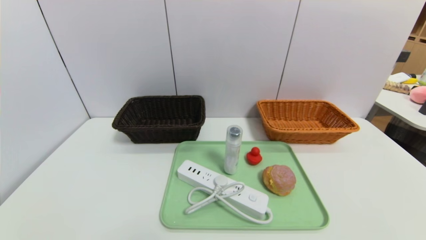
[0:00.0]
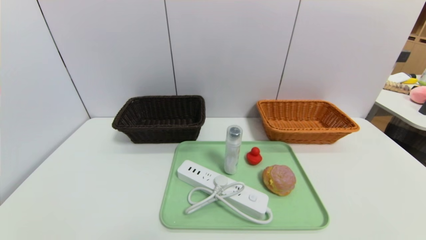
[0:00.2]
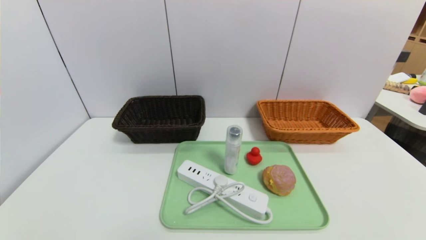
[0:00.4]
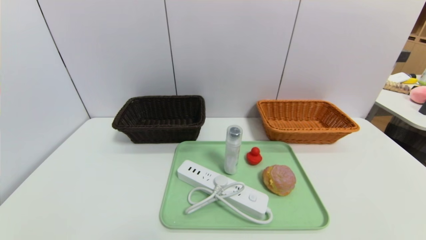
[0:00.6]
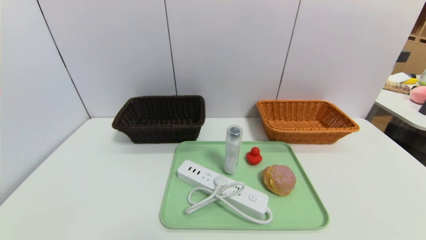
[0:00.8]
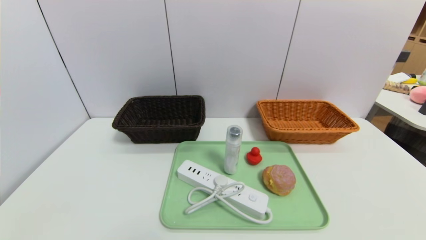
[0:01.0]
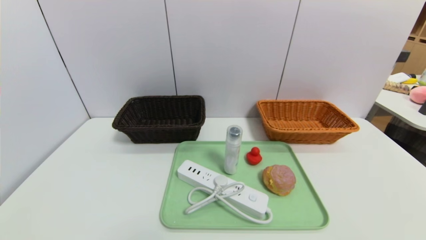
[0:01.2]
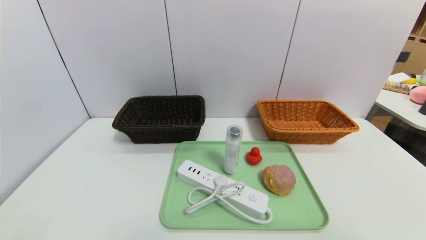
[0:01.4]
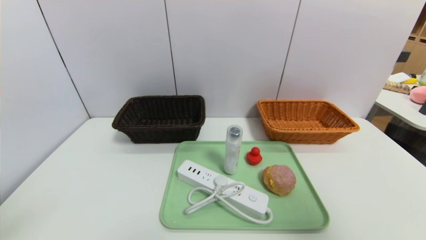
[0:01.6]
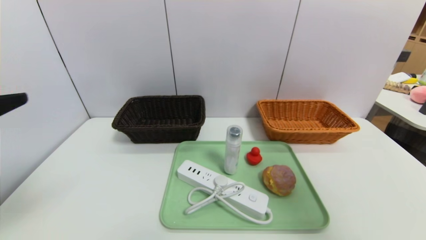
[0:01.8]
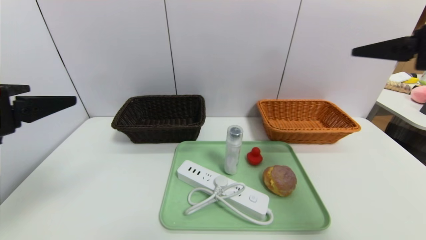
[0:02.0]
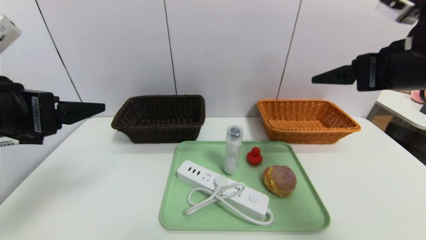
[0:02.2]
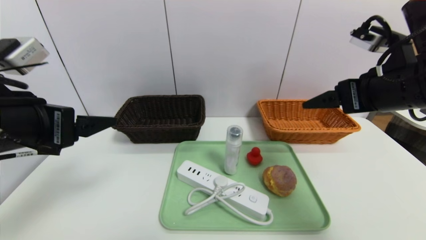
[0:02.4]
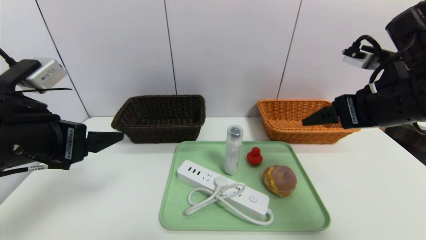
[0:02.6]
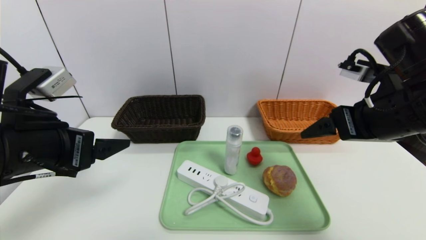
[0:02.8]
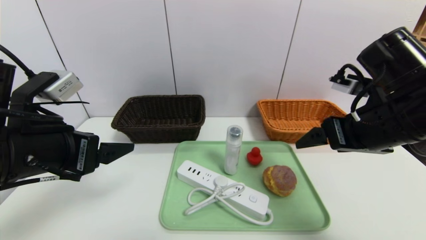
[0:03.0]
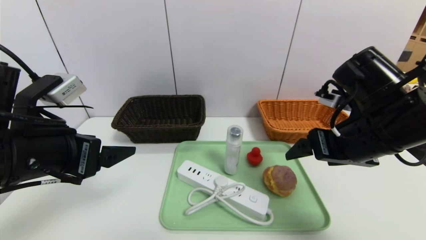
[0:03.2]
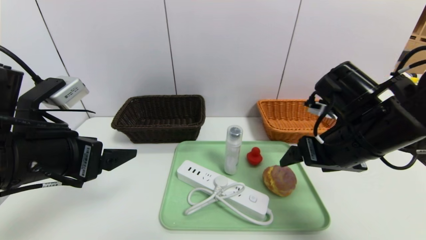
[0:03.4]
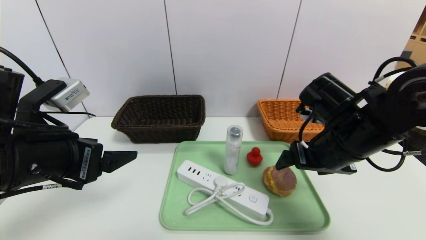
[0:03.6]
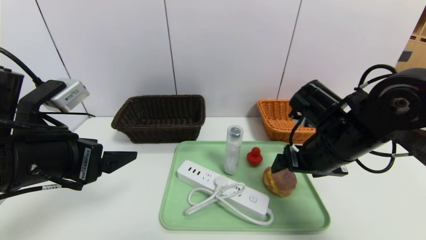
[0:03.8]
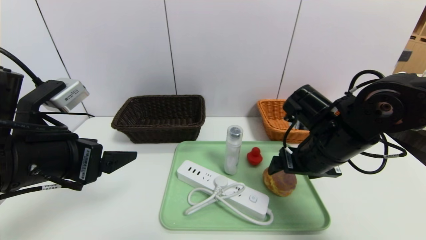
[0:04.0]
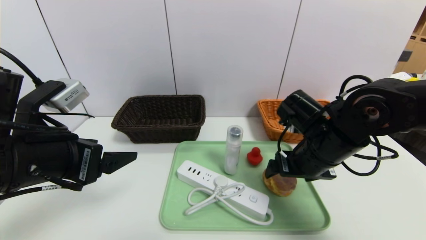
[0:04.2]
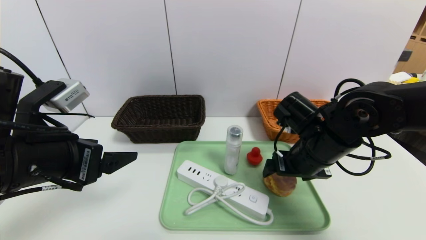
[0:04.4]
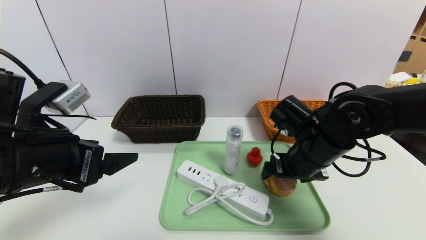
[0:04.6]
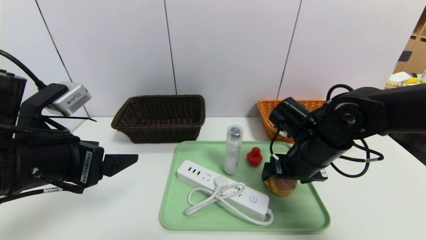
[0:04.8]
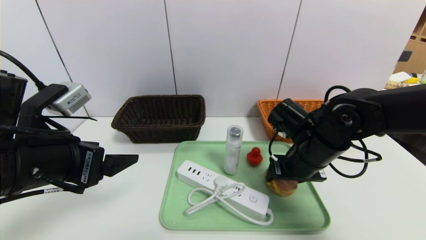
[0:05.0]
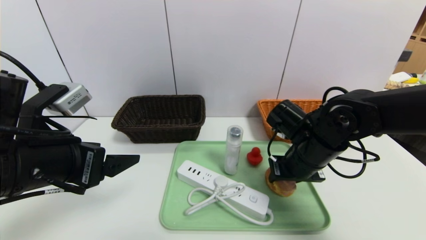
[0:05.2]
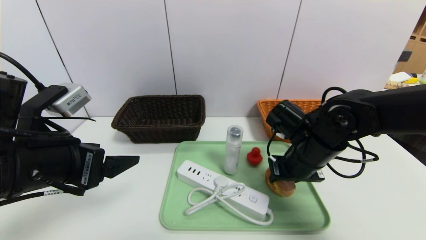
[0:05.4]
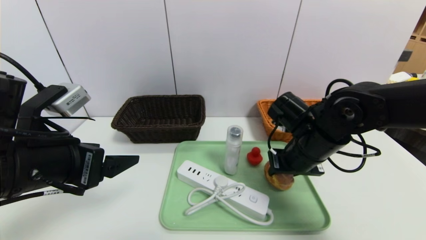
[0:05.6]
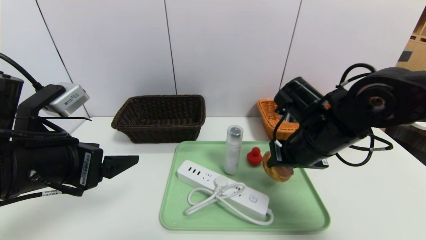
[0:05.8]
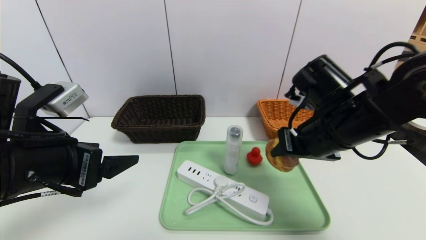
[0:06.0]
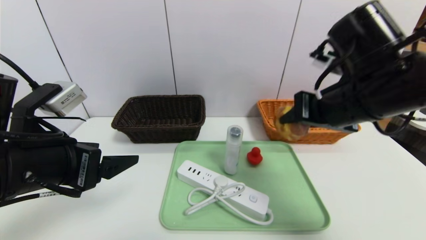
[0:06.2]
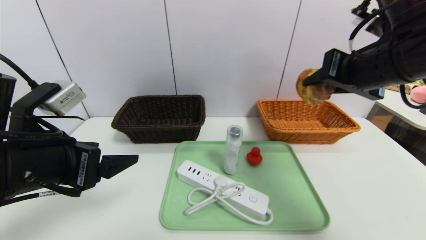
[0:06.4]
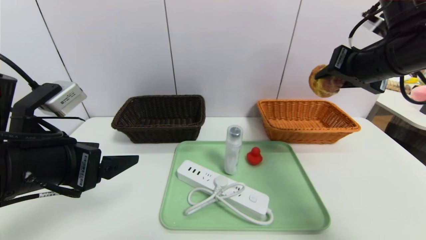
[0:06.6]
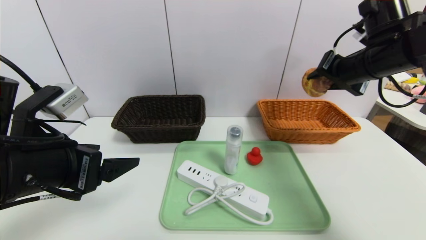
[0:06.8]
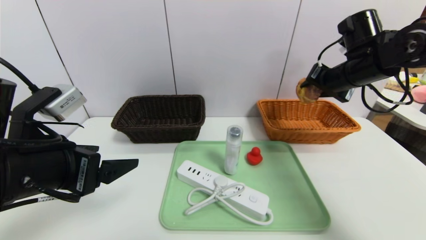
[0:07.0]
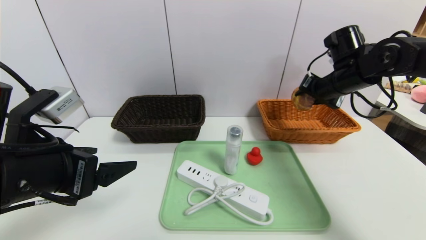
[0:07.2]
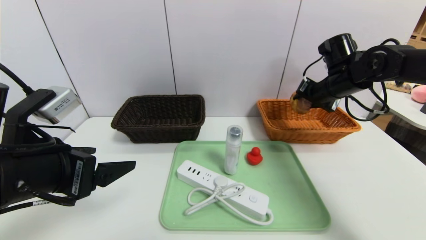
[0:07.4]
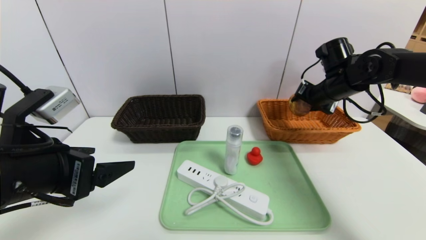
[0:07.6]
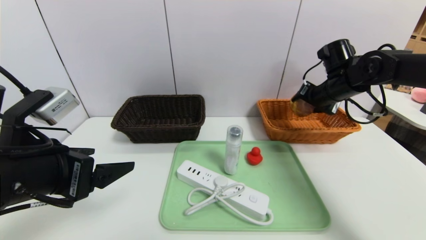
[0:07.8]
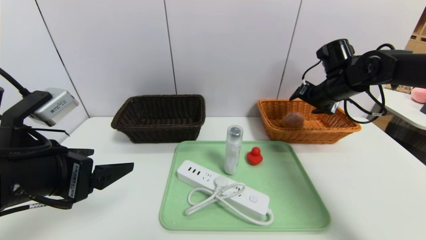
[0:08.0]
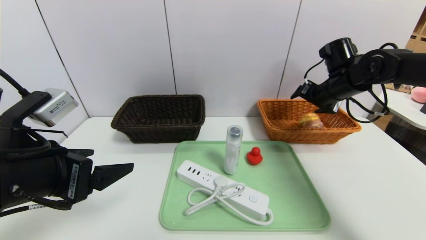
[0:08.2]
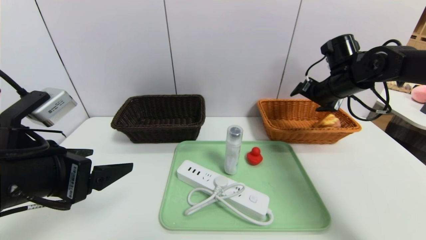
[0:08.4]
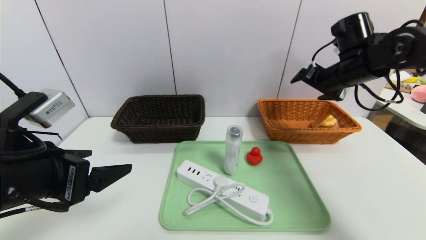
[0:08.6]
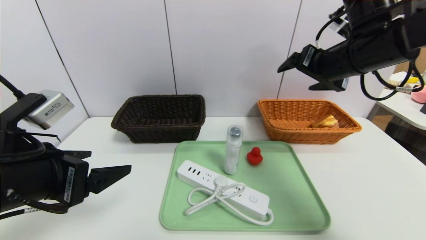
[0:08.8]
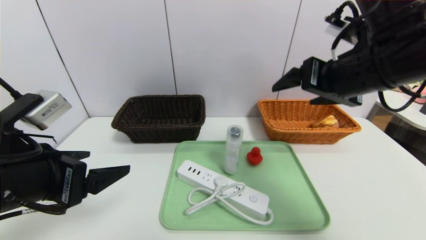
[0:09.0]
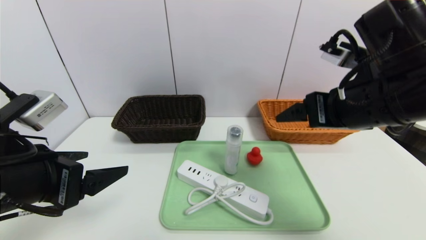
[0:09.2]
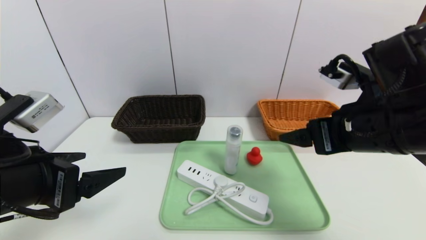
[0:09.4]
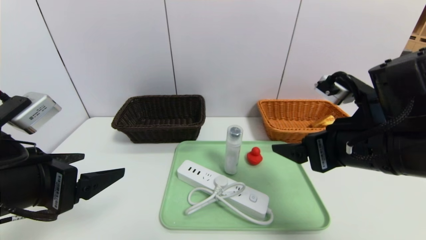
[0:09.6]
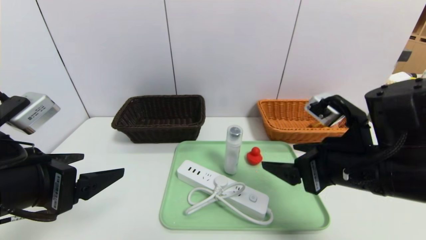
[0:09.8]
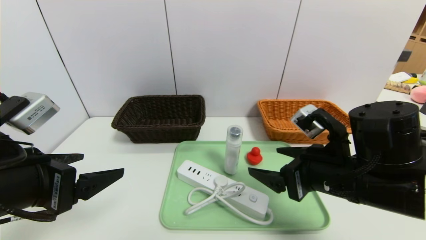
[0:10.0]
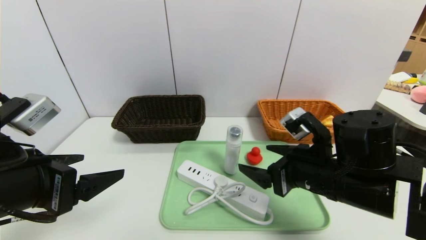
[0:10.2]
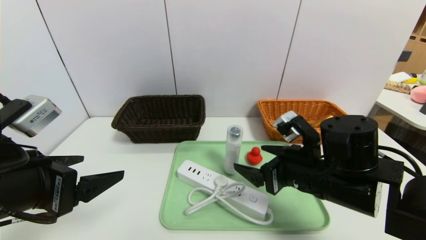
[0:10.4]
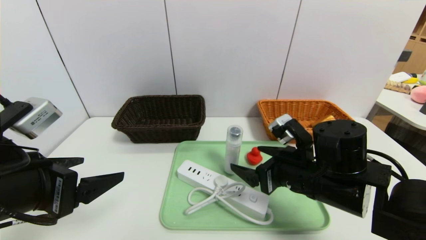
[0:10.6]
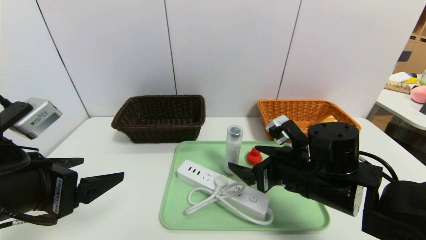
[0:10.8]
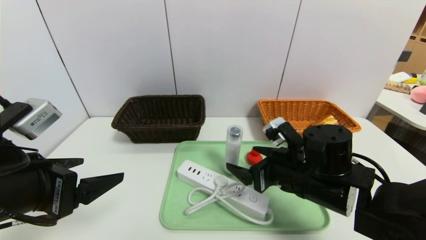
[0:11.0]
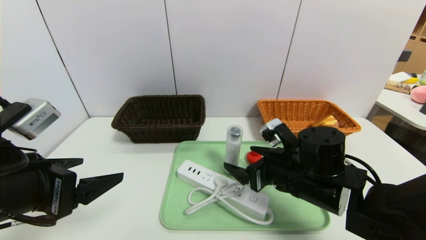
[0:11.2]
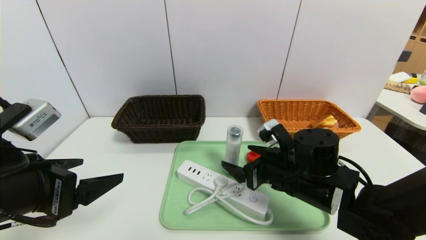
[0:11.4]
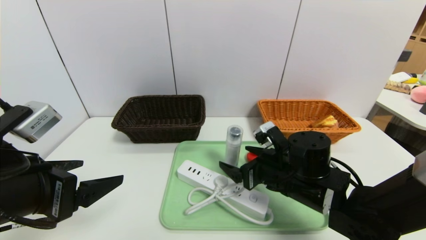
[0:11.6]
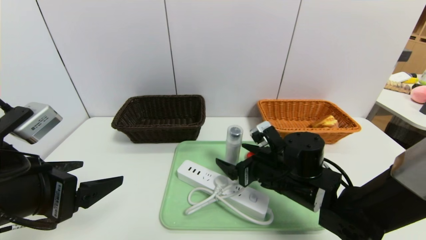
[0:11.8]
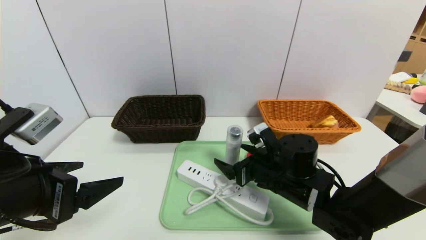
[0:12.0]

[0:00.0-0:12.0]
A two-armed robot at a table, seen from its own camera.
Task of the whole recording: place the food in the right basket with the right gripper, and place the non food items in the left basket with the left gripper.
Step, 0:00.0 to 0:08.8: Grasp the round bread and put it in the right basket.
0:00.0 to 0:01.6: The grippers both shift upward by roughly 25 cm.
0:01.6 to 0:03.0: The right gripper heads forward, downward and to the left, covering roughly 25 cm. Meanwhile the left gripper moves forward, to the right and downward, some 15 cm.
0:03.0 to 0:04.4: The right gripper is displaced downward, to the left and forward by approximately 10 cm.
0:04.4 to 0:06.0: The right gripper travels upward by roughly 5 cm, and closes its fingers.
0:06.0 to 0:07.6: The right gripper travels forward and to the right by about 20 cm.
0:07.6 to 0:09.0: The right gripper travels backward, upward and to the left by some 20 cm, and opens its fingers.
0:09.0 to 0:10.4: The right gripper travels downward by roughly 15 cm.
0:10.4 to 0:12.0: The right gripper shifts some 5 cm downward.

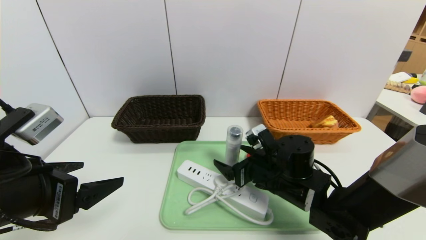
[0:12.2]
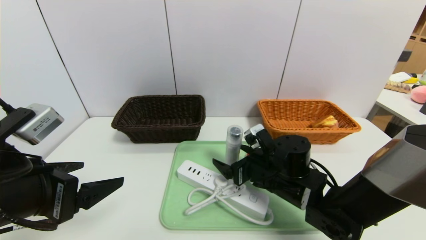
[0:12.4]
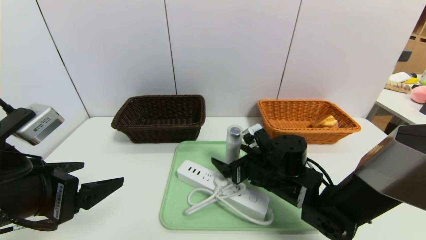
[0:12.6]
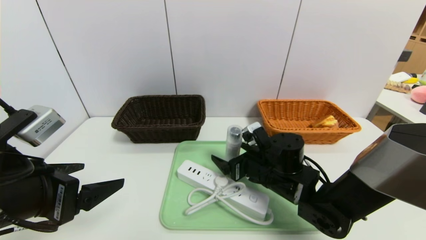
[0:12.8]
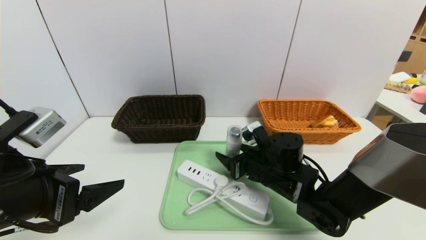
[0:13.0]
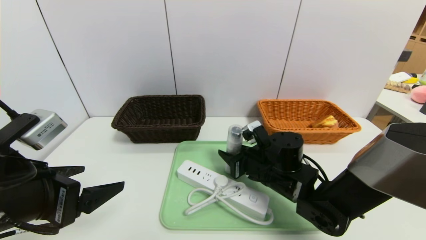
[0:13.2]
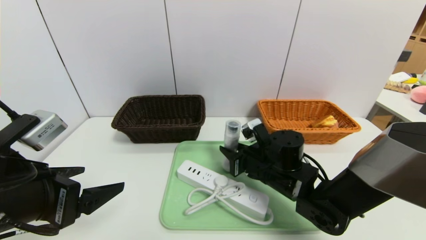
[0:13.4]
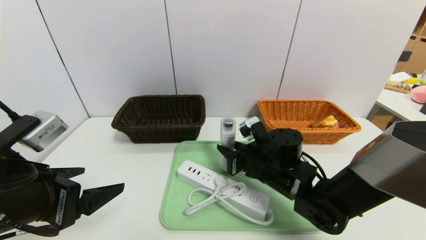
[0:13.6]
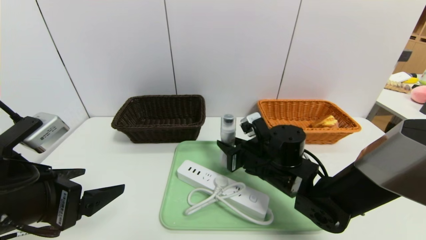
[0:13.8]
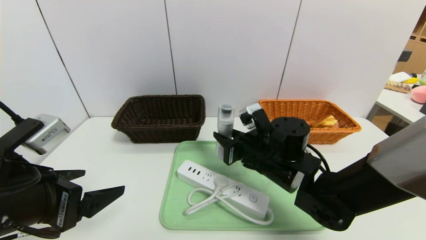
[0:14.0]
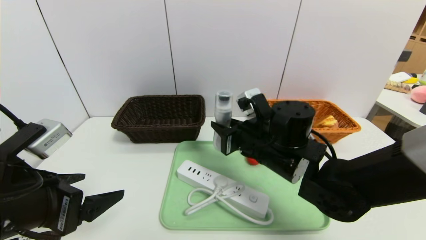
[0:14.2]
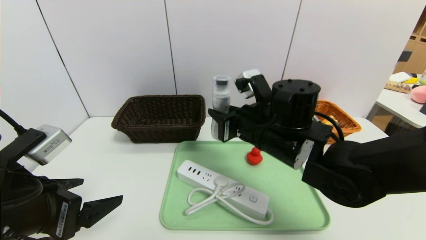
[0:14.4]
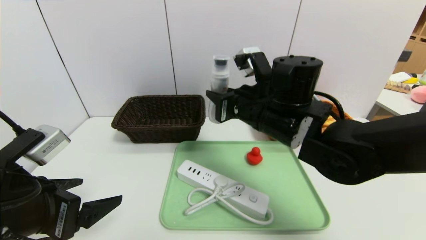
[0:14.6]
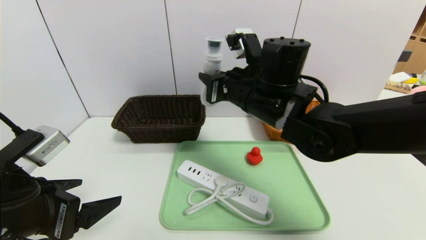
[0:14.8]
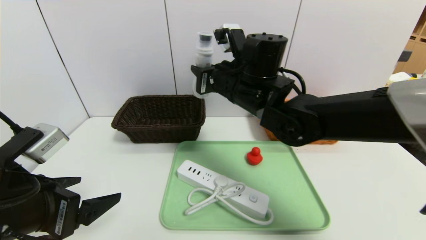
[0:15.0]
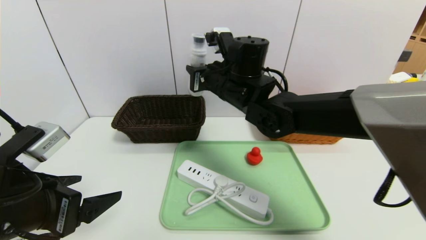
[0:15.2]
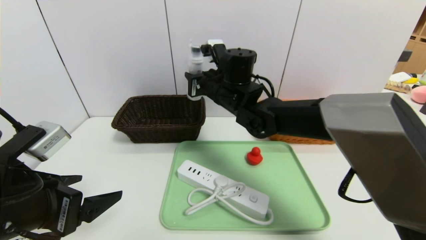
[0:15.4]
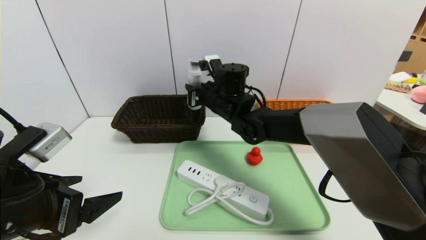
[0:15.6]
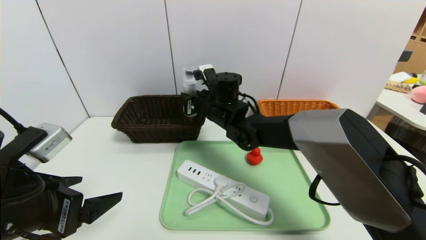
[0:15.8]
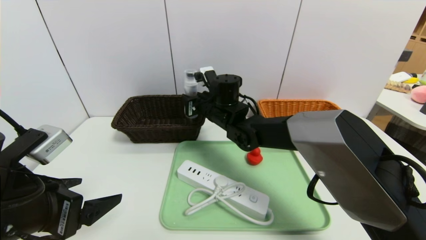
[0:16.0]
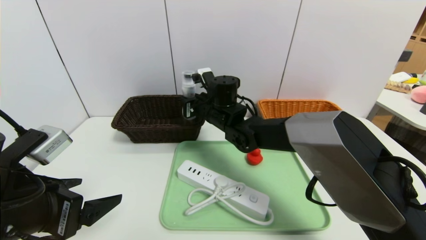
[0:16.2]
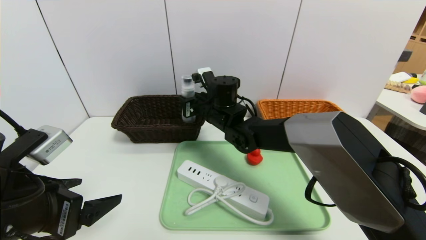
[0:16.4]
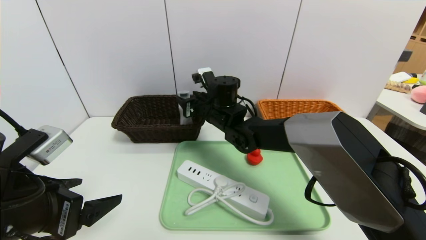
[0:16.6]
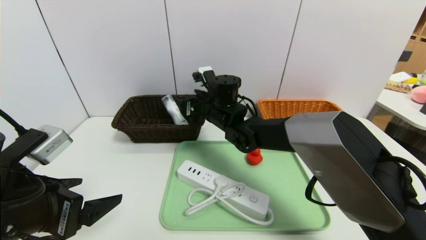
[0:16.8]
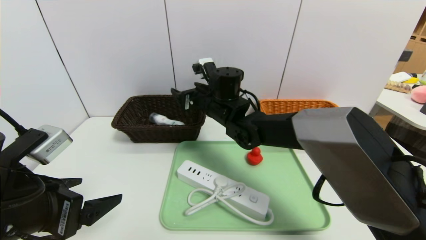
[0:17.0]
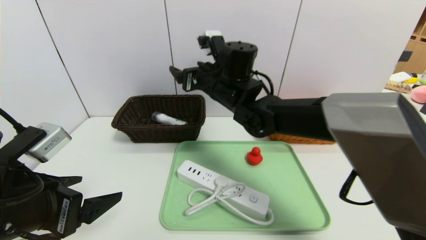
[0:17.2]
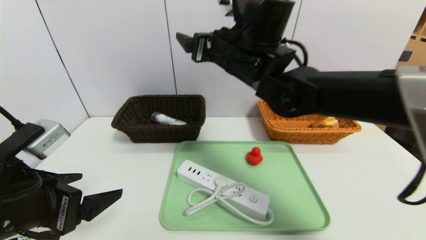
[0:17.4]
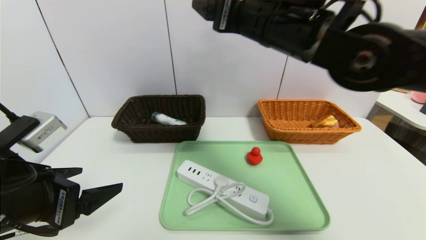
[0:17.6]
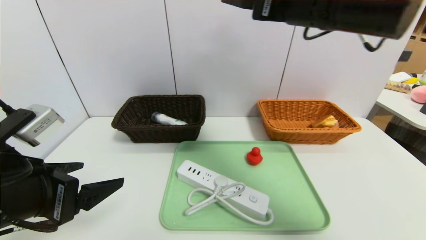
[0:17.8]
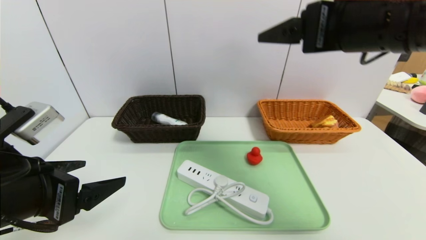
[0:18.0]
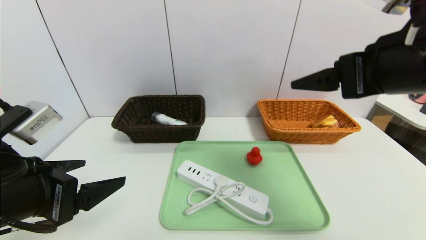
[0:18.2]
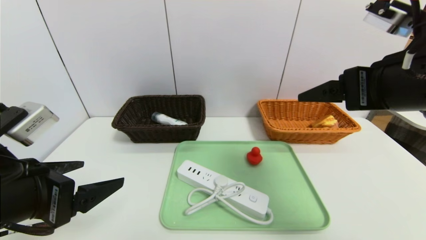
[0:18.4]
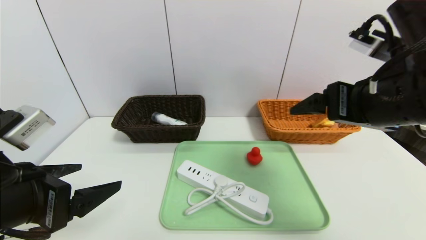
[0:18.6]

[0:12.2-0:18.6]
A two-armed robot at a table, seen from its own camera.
Task of the whole recording: place the food in the right basket with the right gripper, and place the non food items in the left basket with the left gripper.
0:12.2 to 0:13.8: The right gripper closes its fingers.
0:13.8 to 0:15.4: The right gripper shifts roughly 20 cm upward, forward and to the left.
0:15.4 to 0:17.0: The right gripper opens up.
0:17.0 to 0:18.6: The right gripper is displaced to the right, backward and upward by some 30 cm.
